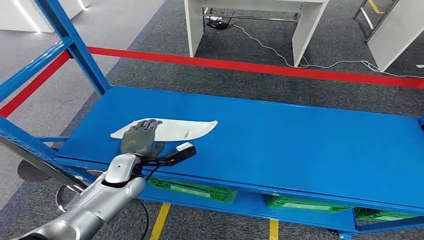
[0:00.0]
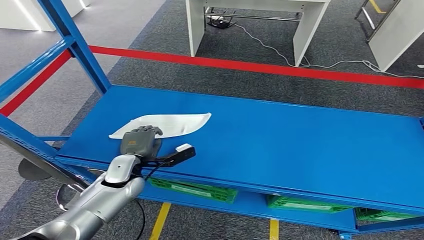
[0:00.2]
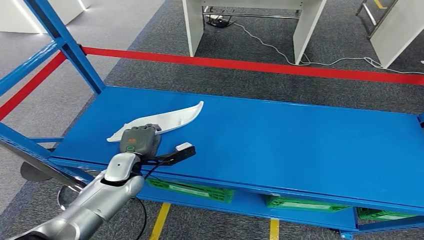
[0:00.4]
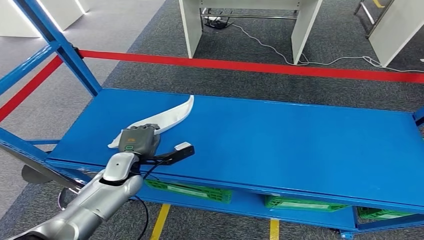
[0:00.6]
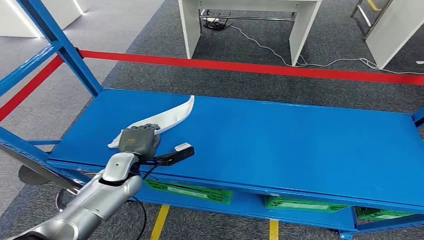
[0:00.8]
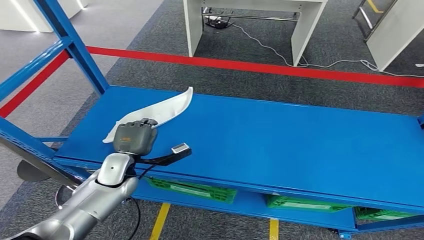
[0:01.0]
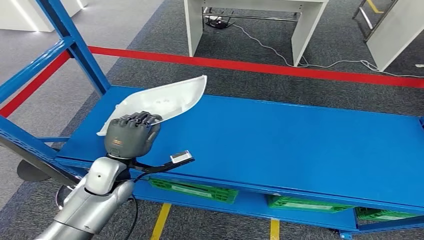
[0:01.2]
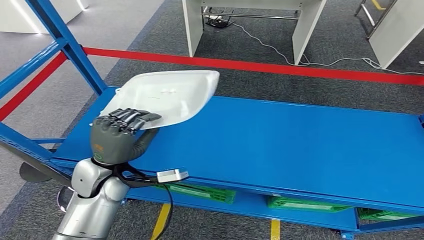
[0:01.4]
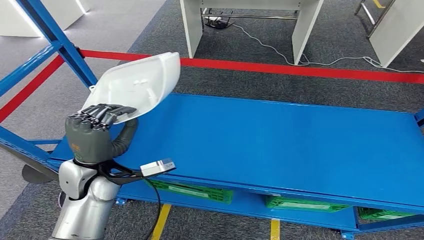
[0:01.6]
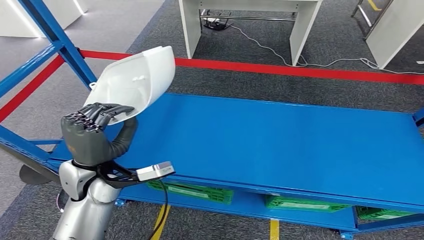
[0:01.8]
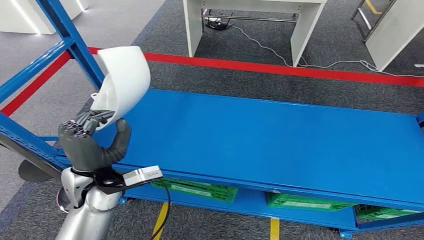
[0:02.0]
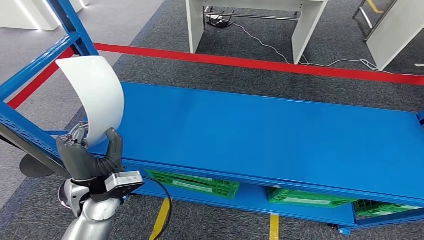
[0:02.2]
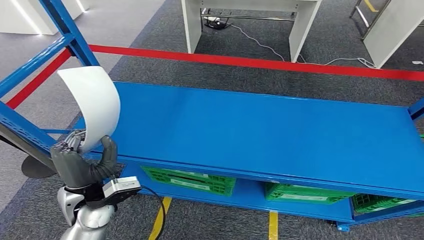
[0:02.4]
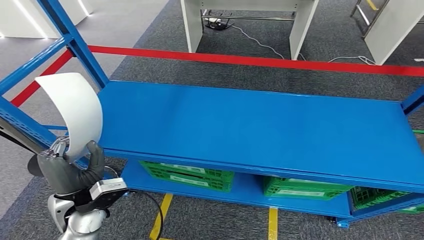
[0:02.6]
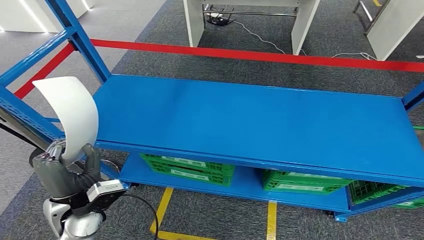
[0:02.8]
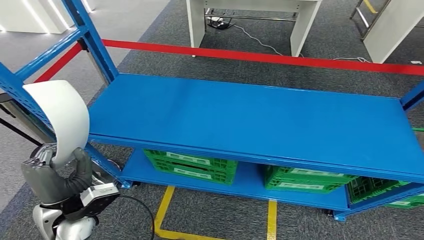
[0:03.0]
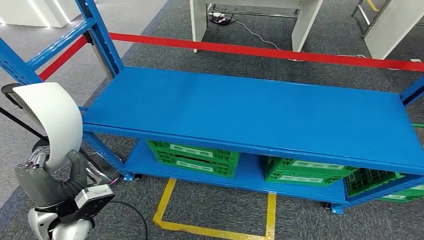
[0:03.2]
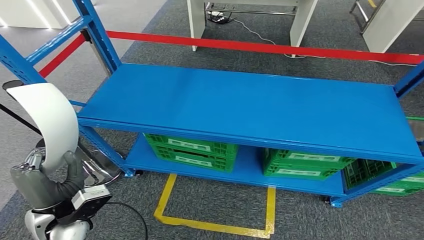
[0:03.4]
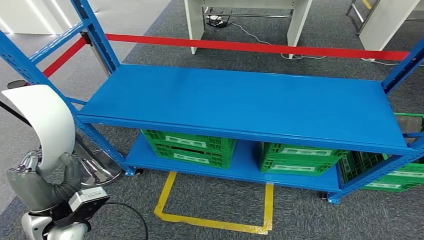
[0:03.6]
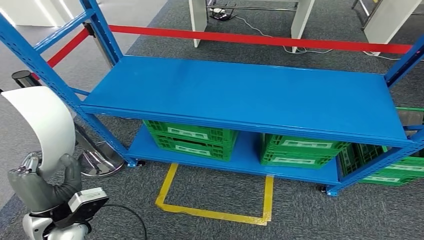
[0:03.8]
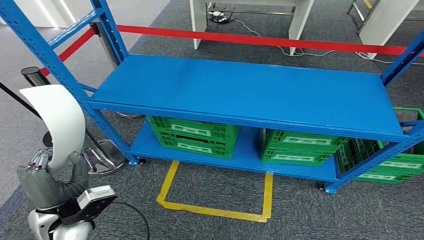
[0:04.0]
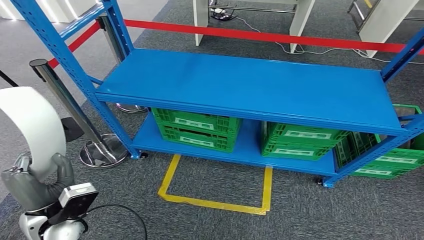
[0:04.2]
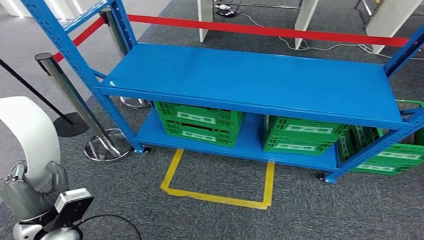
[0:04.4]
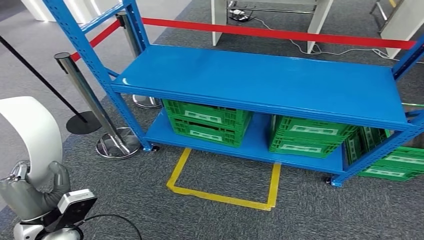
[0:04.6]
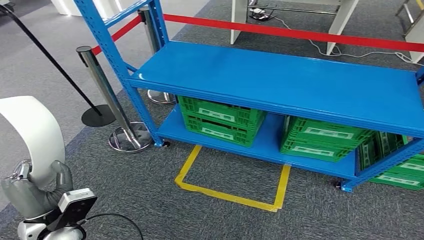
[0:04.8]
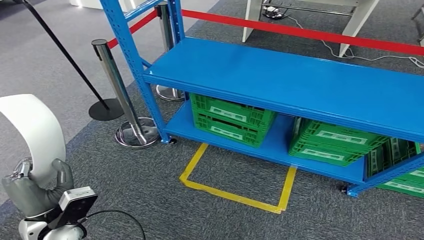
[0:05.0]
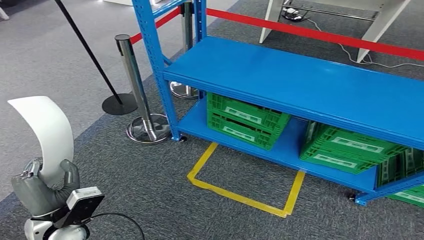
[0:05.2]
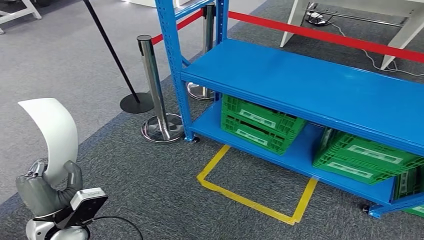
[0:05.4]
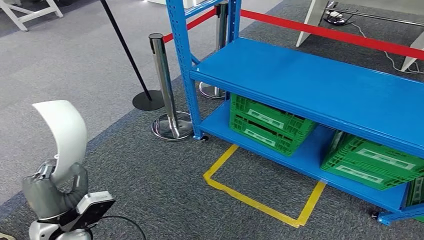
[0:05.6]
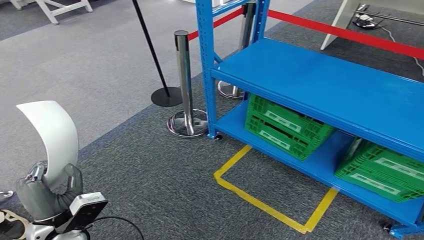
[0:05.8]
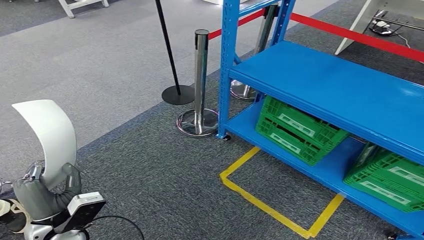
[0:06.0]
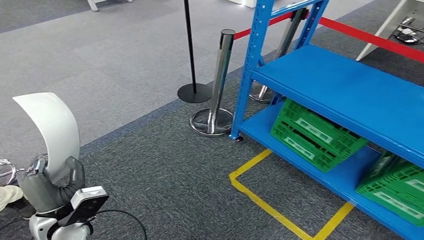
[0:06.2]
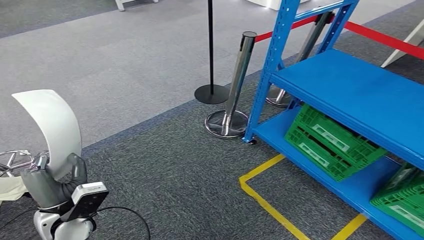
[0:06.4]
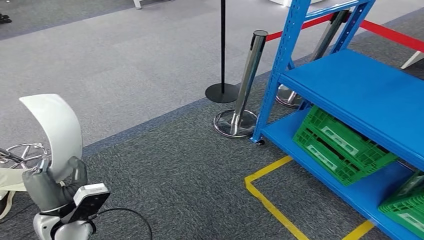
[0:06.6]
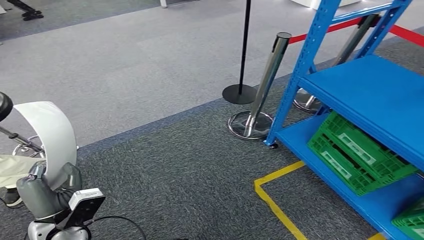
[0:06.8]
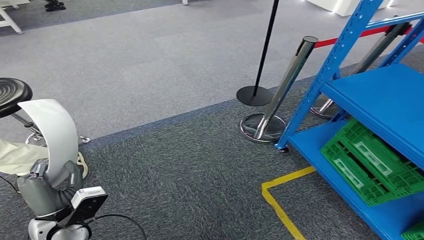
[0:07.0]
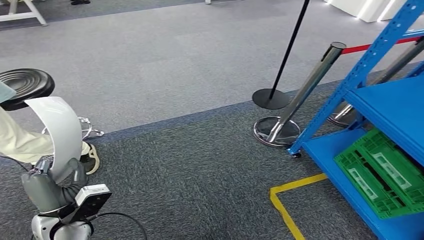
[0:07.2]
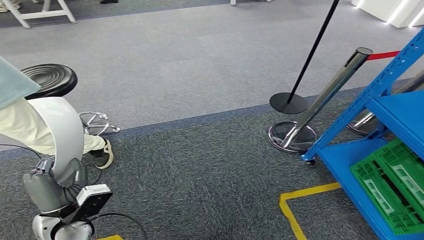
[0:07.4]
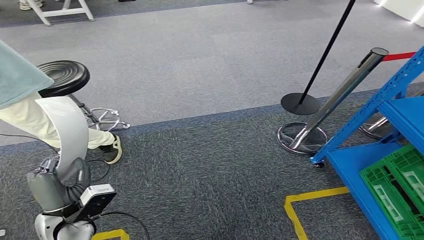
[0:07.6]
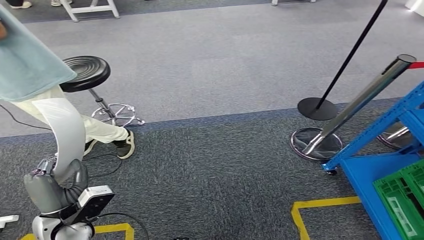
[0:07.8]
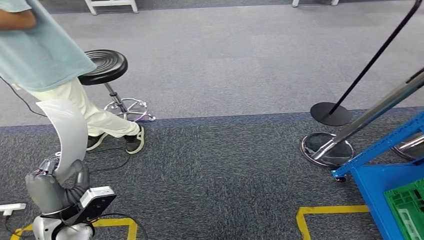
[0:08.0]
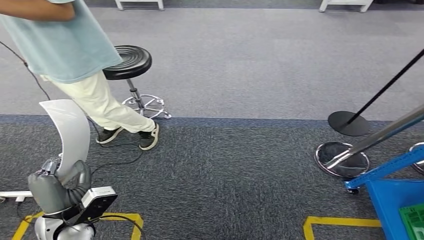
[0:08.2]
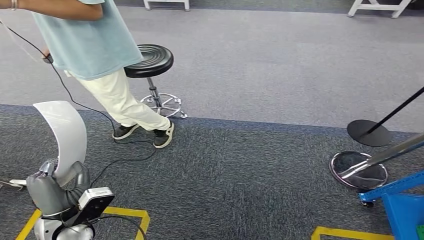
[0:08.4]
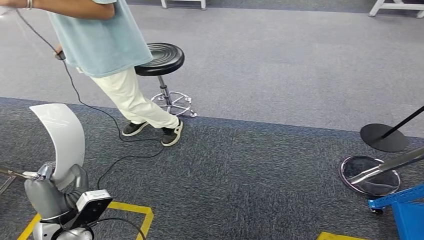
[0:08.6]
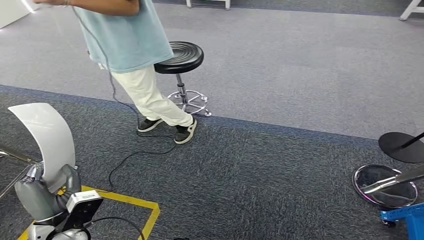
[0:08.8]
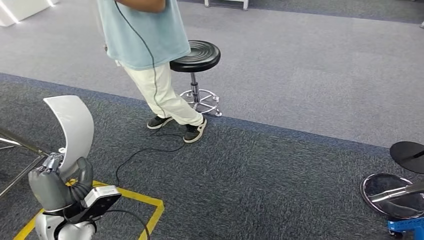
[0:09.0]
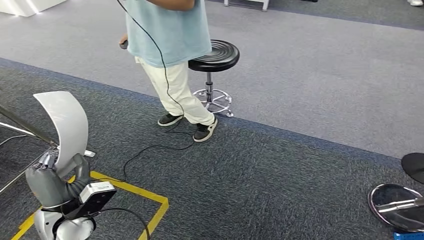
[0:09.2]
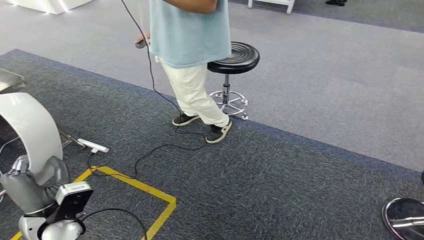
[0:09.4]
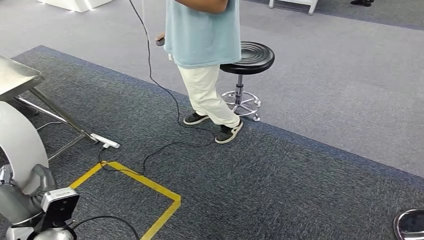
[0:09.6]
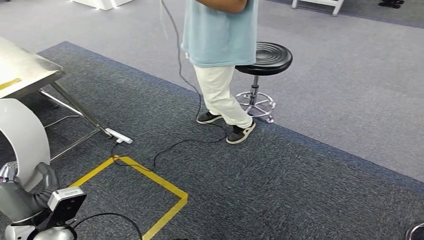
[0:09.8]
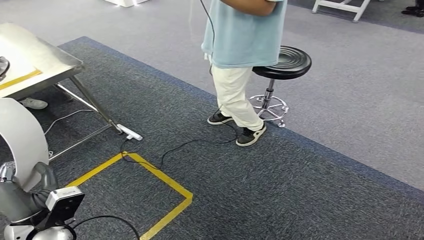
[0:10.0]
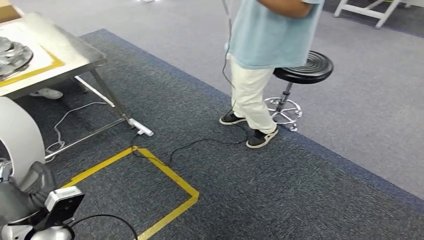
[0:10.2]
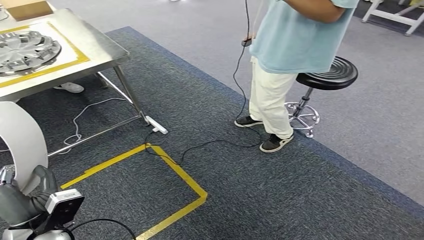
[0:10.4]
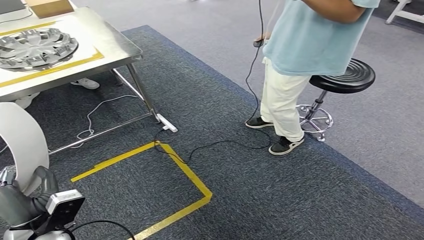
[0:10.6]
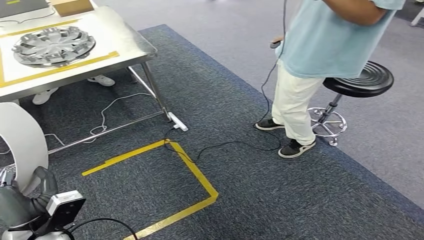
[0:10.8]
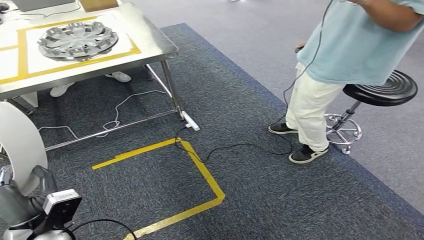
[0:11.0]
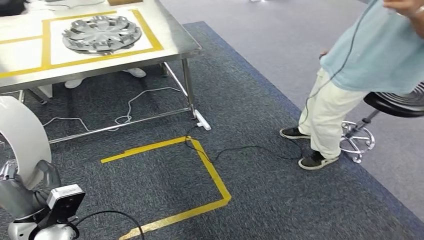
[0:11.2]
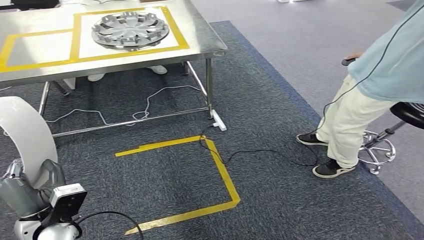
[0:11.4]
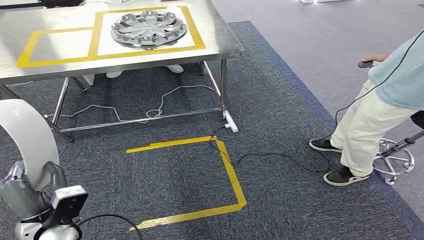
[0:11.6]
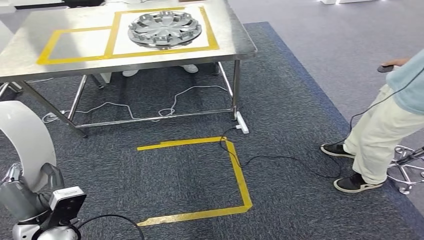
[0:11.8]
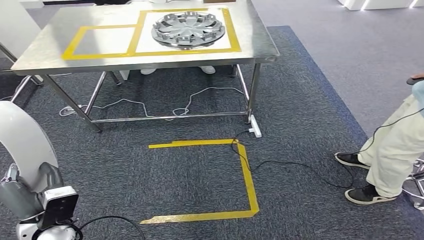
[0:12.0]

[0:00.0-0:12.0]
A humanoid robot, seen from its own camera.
Step, 0:00.0 to 0:03.0: Pick up the small component from the shelf.

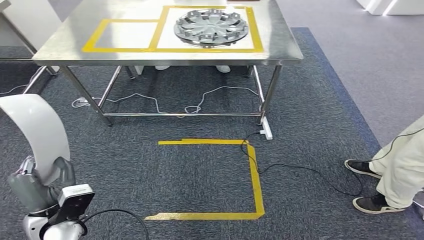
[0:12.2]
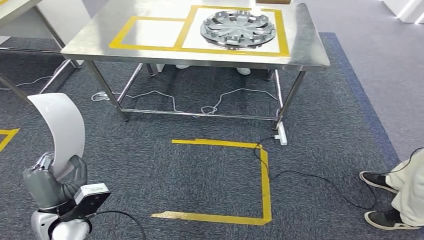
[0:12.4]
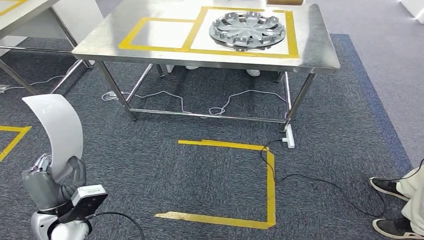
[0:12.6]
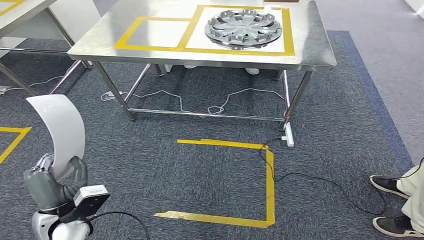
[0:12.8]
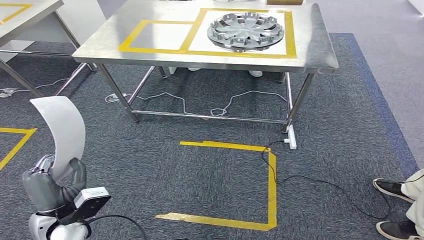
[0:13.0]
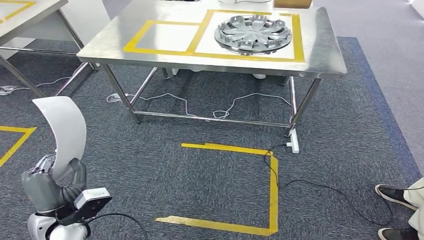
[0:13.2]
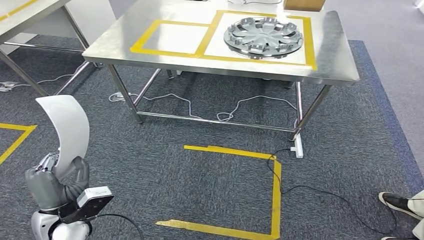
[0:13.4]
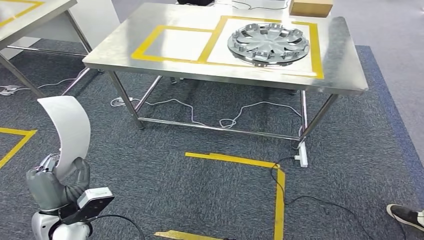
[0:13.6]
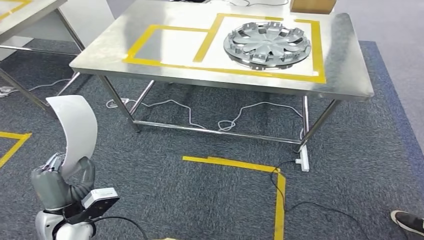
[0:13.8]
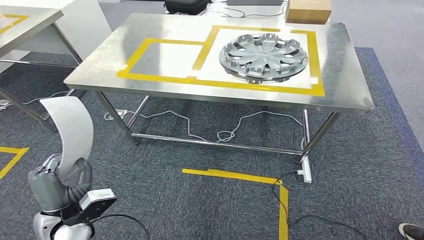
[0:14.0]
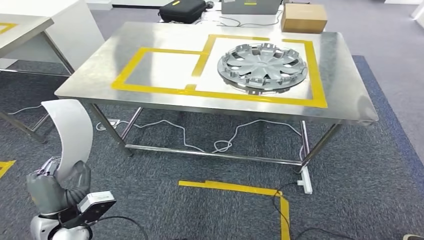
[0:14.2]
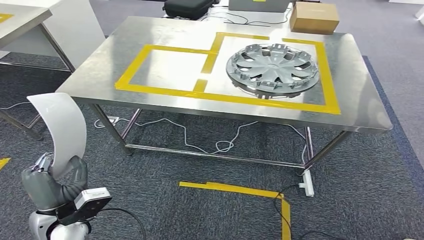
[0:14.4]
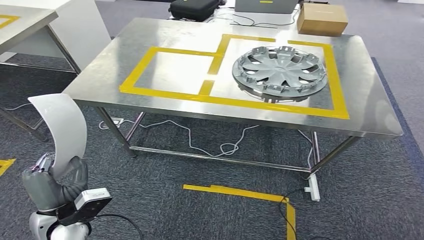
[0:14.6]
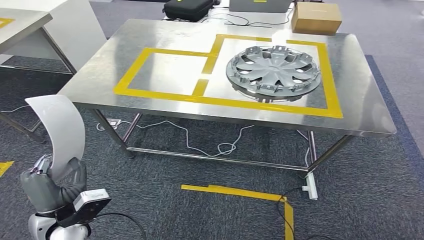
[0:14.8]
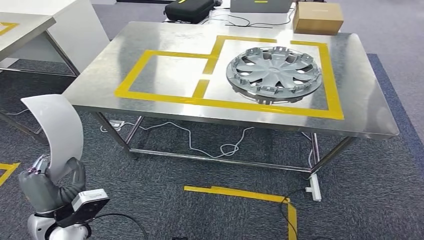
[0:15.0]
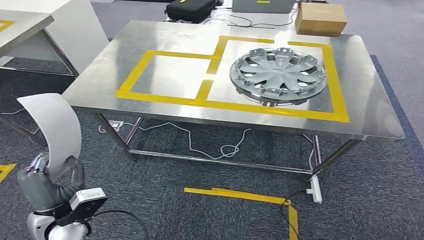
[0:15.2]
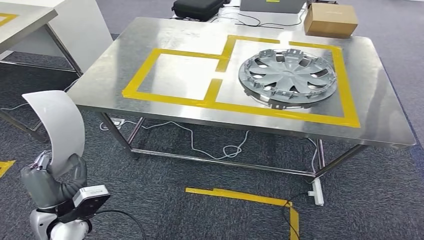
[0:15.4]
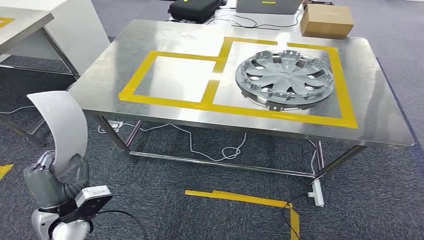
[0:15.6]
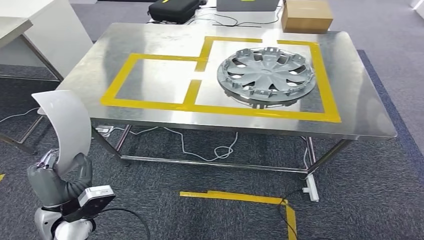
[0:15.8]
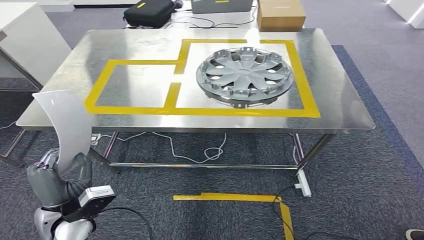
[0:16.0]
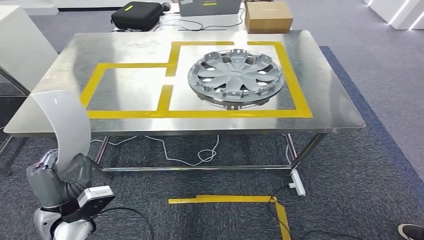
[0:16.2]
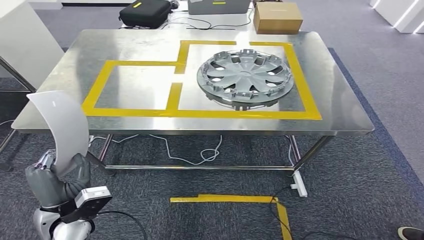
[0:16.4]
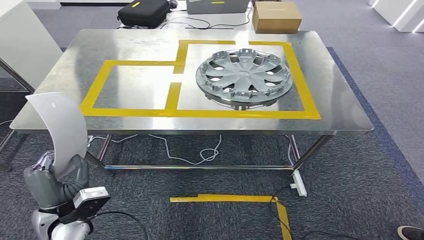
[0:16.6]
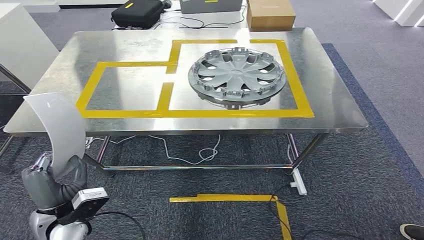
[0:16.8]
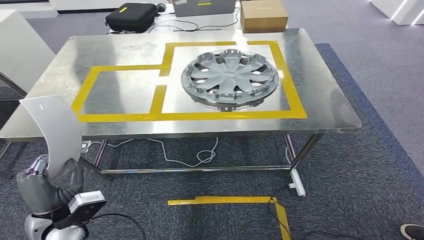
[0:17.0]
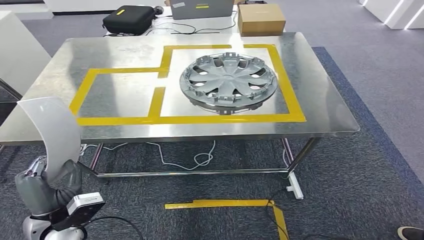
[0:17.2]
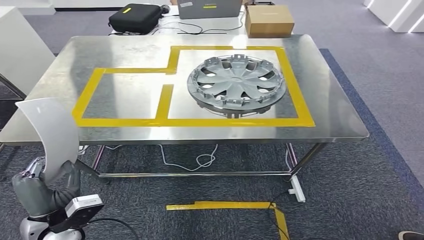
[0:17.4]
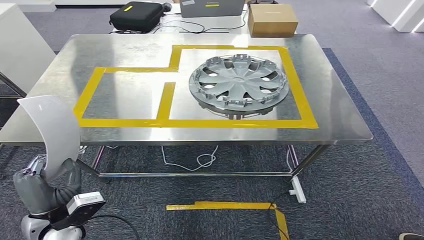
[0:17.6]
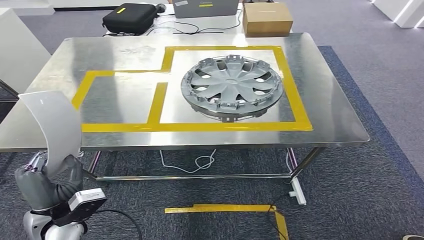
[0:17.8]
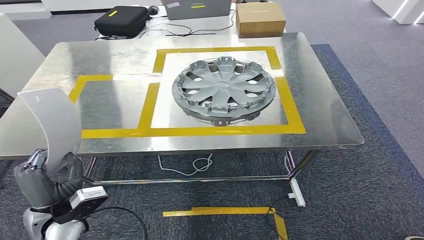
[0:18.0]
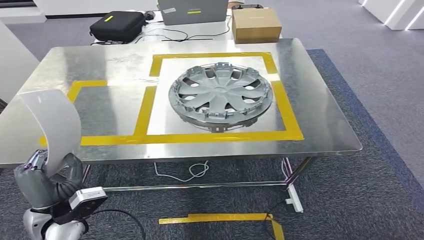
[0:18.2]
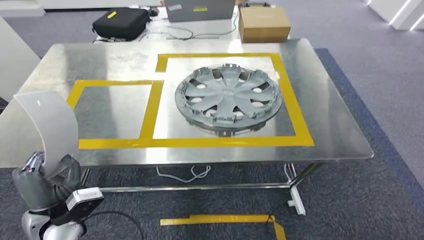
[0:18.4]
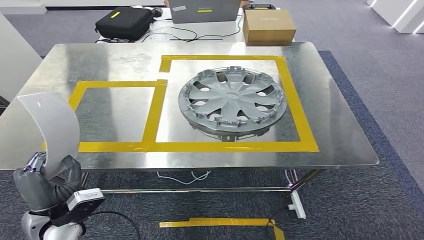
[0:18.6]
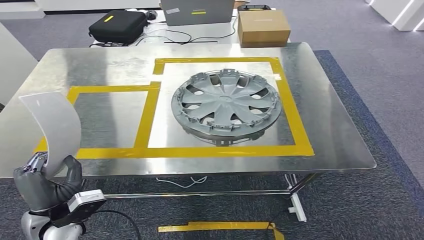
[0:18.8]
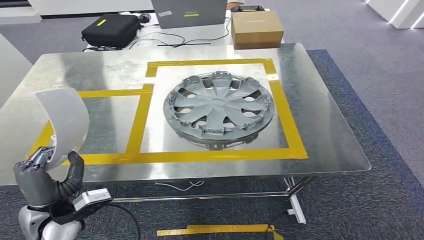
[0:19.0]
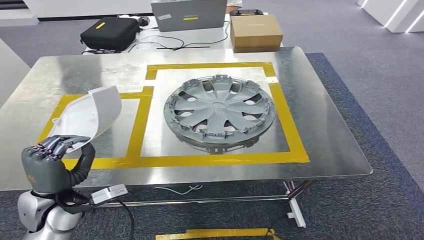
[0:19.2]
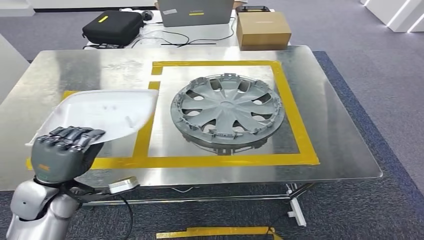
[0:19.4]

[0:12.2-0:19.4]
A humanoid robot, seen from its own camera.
Step, 0:12.2 to 0:16.2: Move the small component to the workbench.
